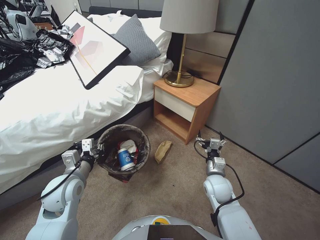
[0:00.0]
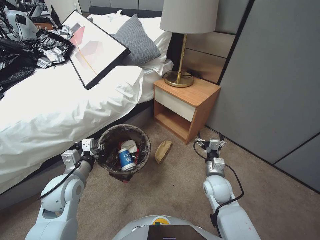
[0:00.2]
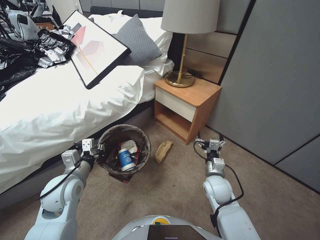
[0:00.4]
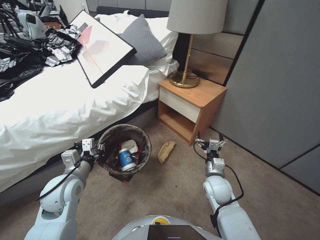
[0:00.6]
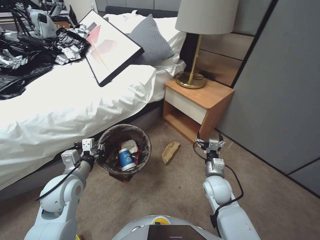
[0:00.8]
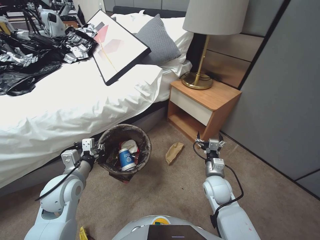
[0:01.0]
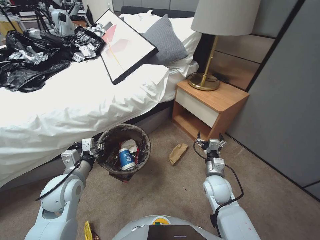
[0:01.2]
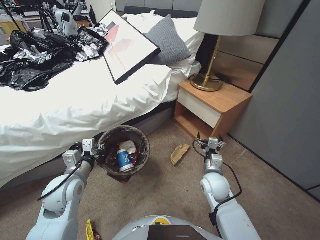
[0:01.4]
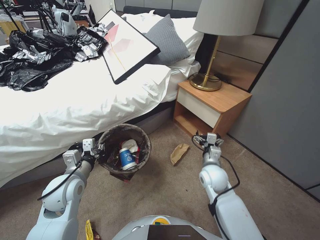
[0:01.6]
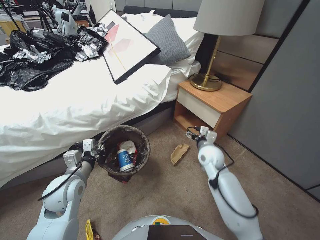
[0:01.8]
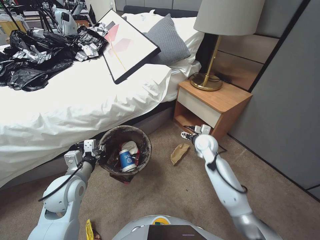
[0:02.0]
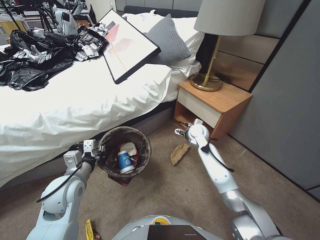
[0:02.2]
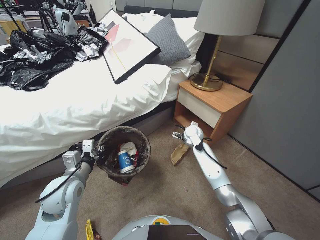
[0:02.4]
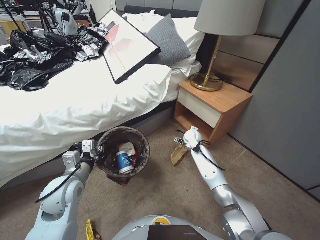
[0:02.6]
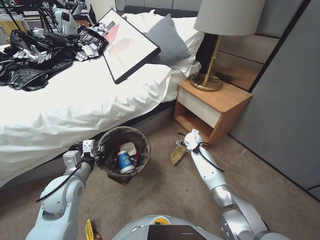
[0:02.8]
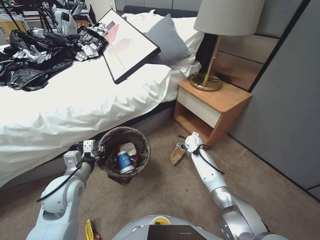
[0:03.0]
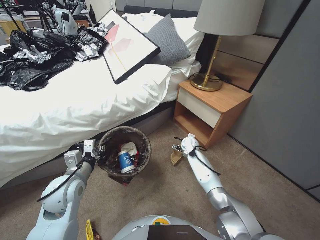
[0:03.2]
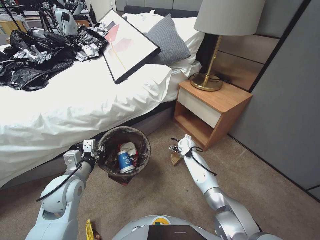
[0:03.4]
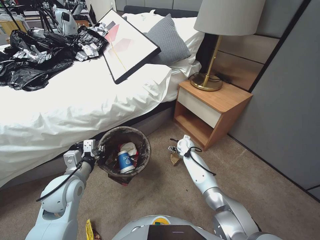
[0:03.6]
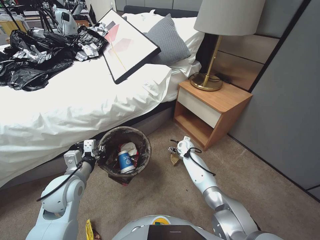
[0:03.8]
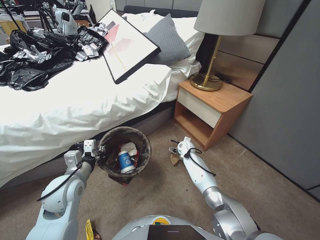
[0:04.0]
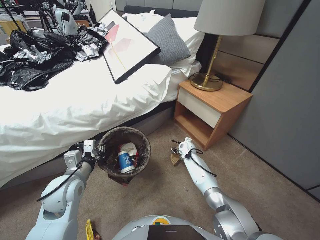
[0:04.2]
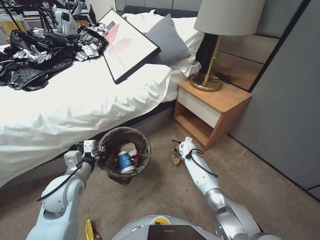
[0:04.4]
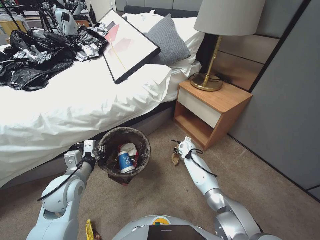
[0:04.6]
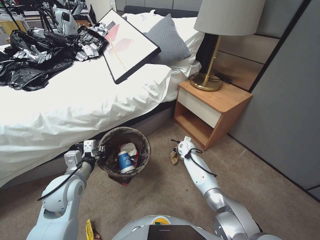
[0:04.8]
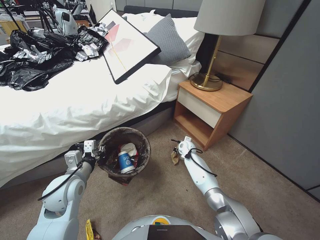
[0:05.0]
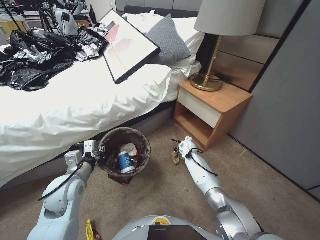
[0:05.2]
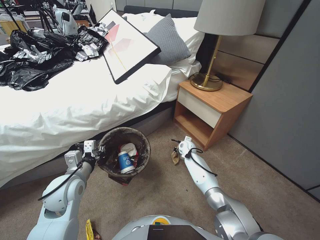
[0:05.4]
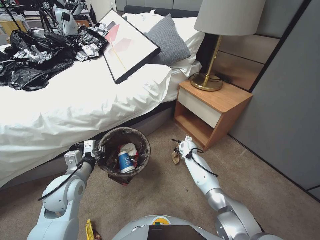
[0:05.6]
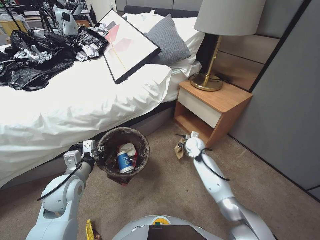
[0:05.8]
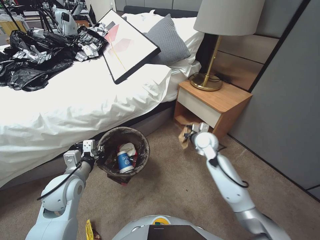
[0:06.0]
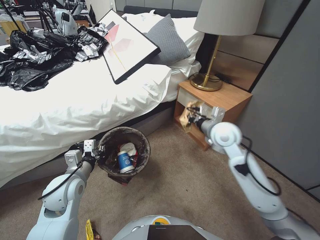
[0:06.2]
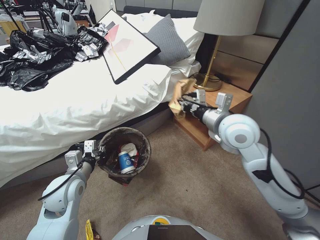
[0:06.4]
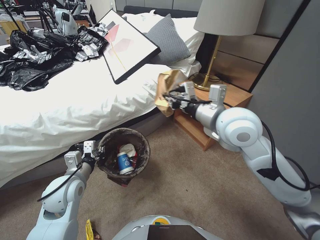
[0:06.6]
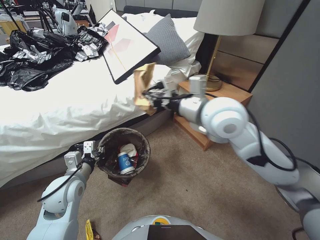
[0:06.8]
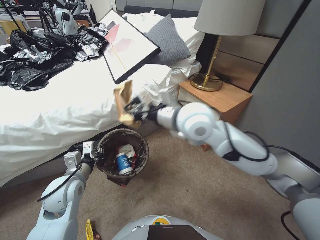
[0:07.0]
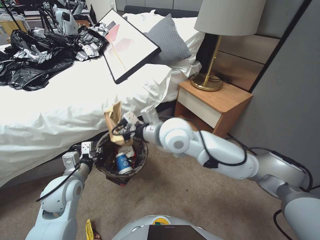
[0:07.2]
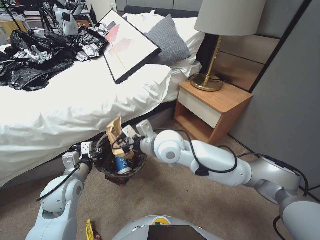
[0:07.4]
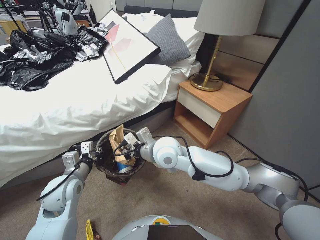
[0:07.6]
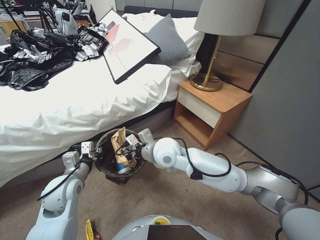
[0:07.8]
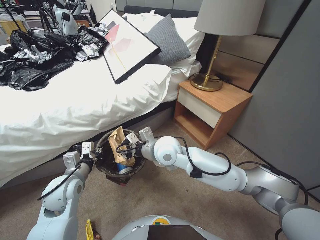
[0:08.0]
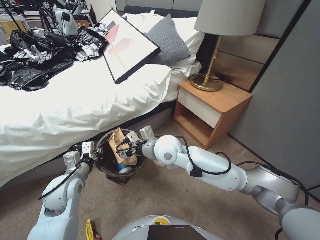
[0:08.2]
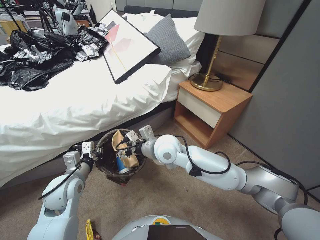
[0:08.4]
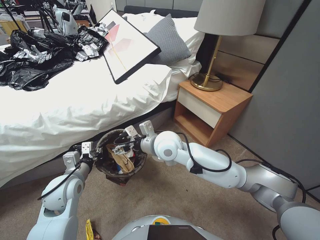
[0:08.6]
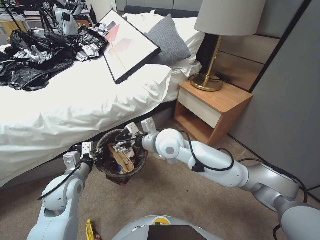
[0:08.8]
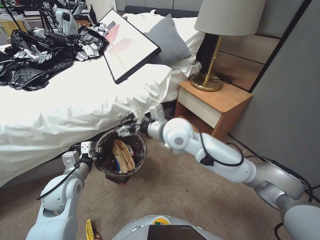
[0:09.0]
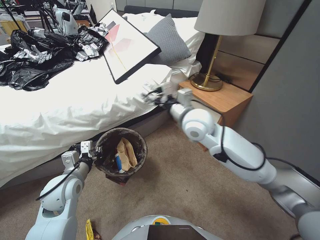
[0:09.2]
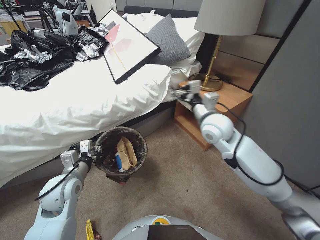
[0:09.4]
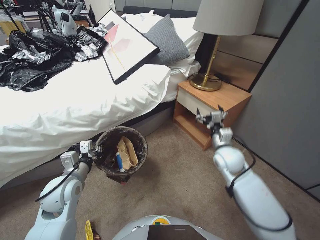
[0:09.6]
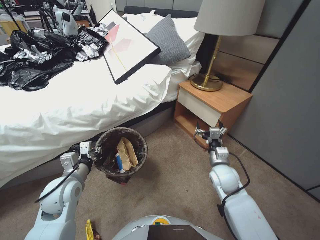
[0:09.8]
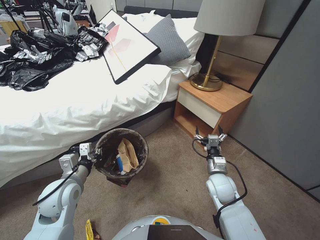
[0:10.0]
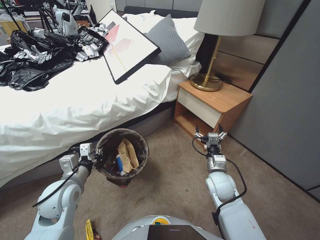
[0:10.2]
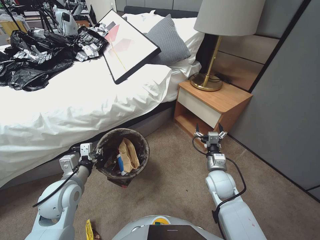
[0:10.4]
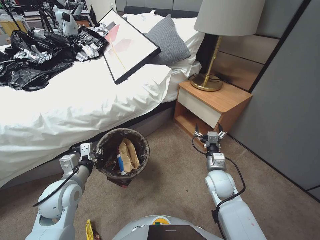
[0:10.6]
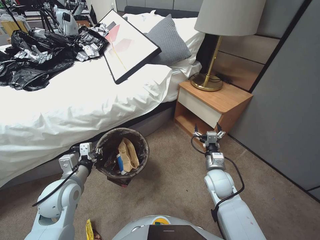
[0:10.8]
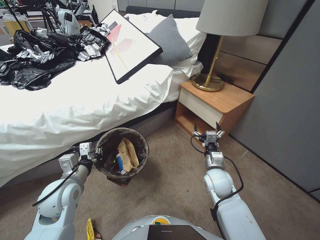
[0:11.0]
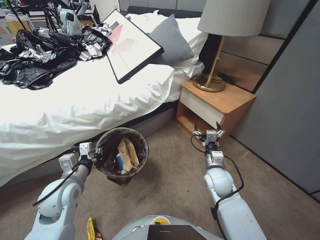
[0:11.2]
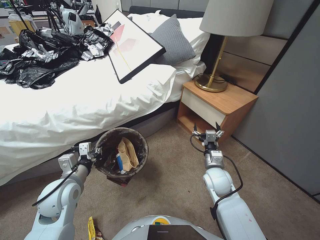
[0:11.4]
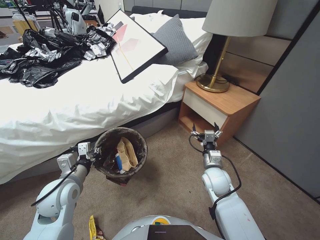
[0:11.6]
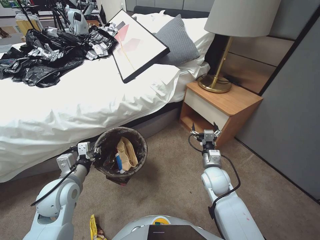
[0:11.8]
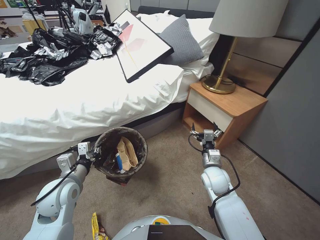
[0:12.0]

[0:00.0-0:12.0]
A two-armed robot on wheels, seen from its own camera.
Task of the whole recording: Pick up the trash bin, then pick up the garbage from the floor and place it into the trash bin.
0:01.6 to 0:03.0: The right gripper heads forward, covering roughly 20 cm.
0:03.0 to 0:04.4: The right gripper moves some 5 cm.
0:04.4 to 0:06.0: The right gripper is displaced upward by approximately 10 cm, and closes its fingers.
0:06.0 to 0:07.6: The right gripper is displaced to the left, upward and backward by roughly 30 cm.
0:07.6 to 0:09.0: The right gripper ends up about 5 cm from where it was, and opens its fingers.
0:09.0 to 0:10.4: The right gripper shifts roughly 30 cm downward and to the right.

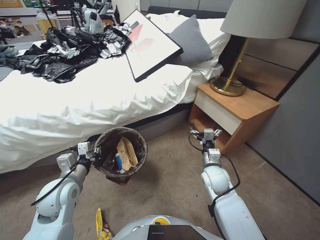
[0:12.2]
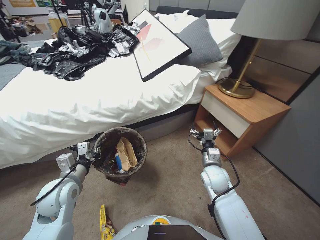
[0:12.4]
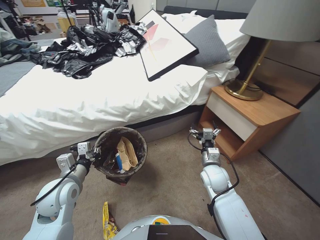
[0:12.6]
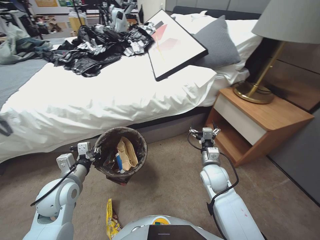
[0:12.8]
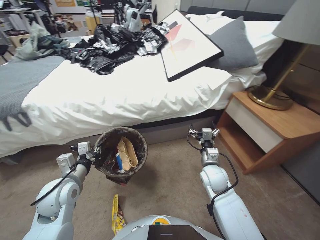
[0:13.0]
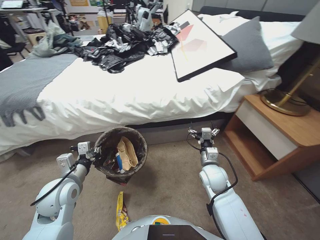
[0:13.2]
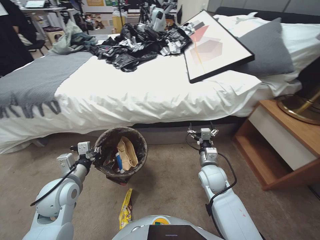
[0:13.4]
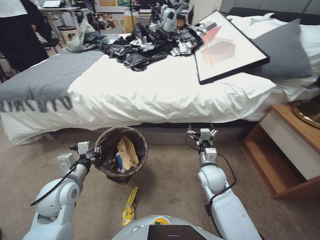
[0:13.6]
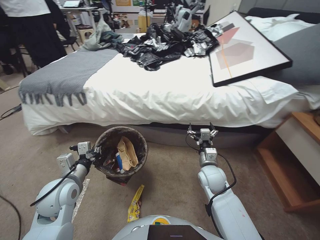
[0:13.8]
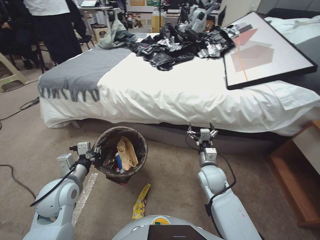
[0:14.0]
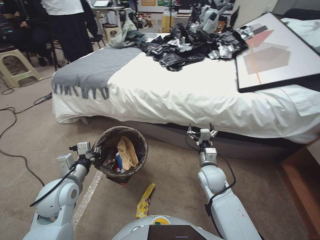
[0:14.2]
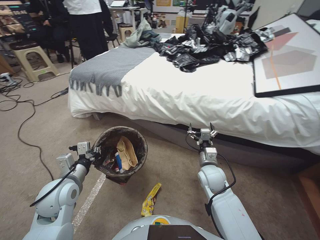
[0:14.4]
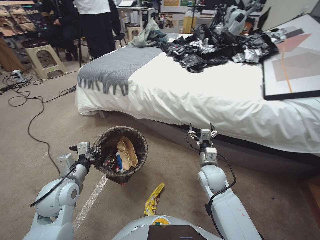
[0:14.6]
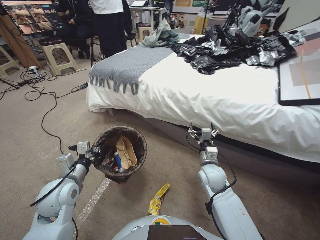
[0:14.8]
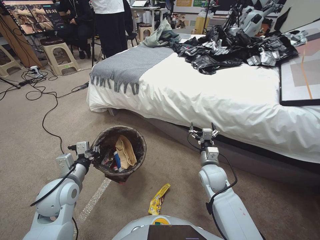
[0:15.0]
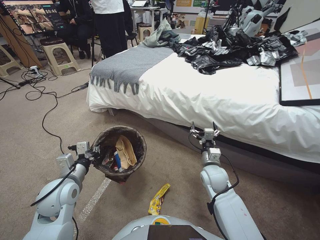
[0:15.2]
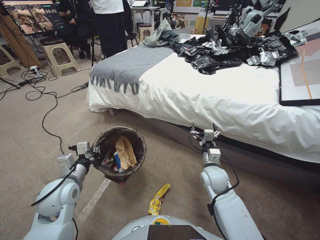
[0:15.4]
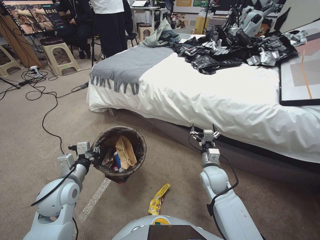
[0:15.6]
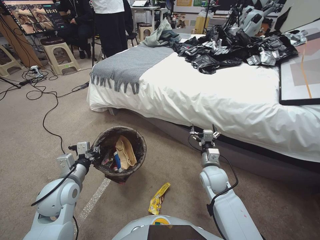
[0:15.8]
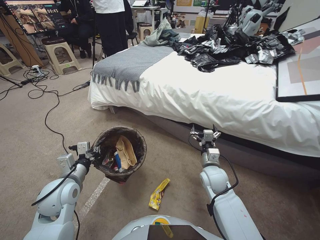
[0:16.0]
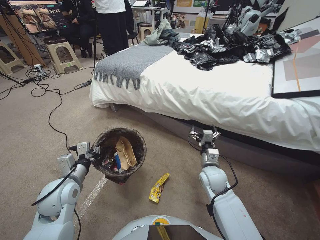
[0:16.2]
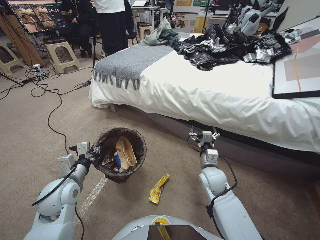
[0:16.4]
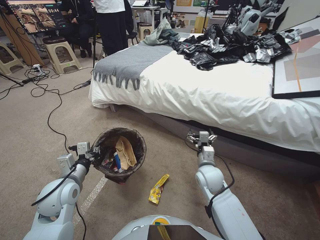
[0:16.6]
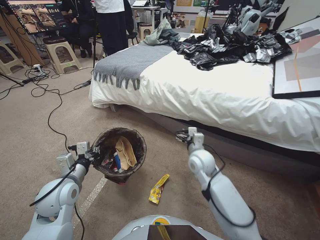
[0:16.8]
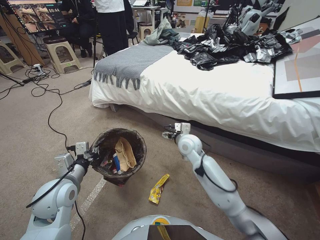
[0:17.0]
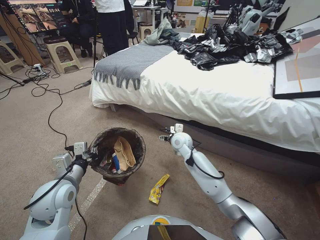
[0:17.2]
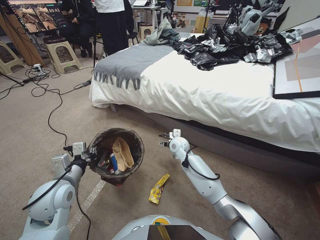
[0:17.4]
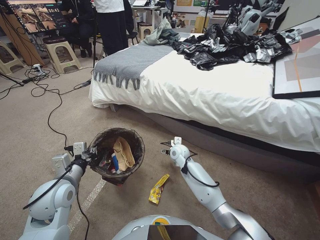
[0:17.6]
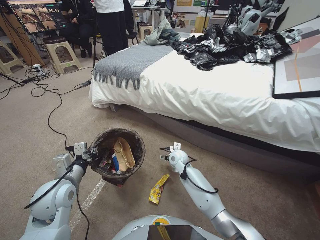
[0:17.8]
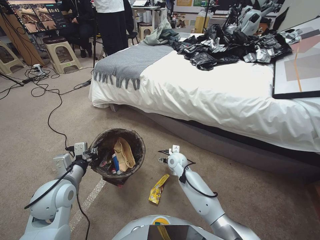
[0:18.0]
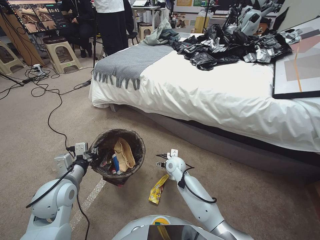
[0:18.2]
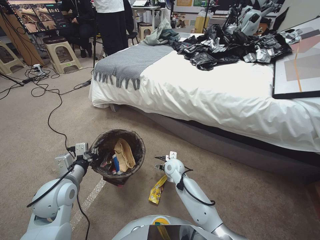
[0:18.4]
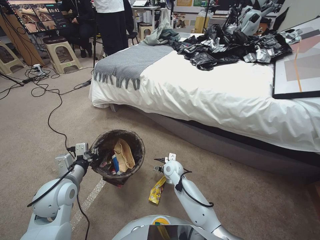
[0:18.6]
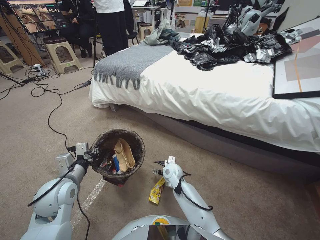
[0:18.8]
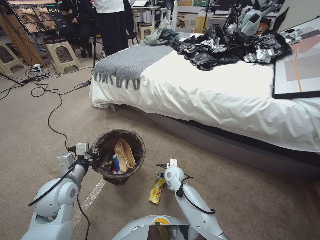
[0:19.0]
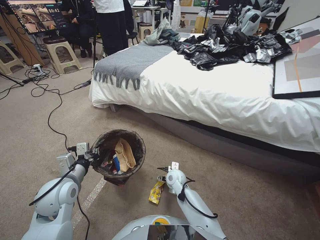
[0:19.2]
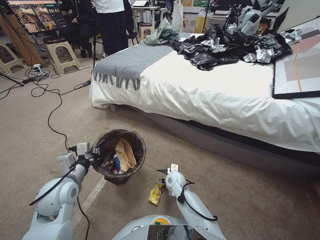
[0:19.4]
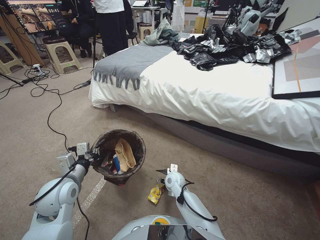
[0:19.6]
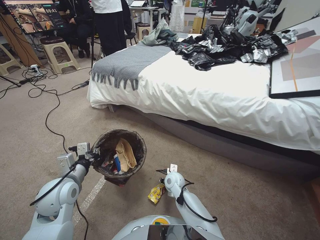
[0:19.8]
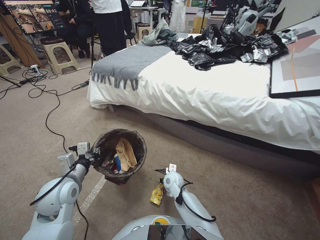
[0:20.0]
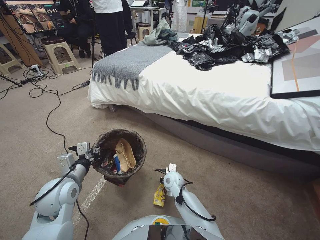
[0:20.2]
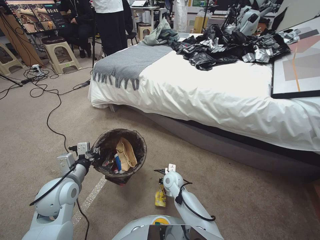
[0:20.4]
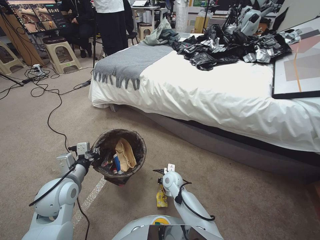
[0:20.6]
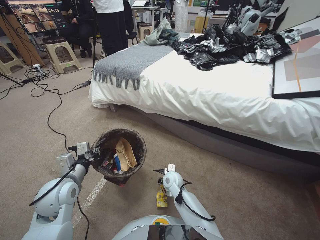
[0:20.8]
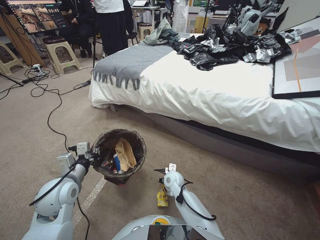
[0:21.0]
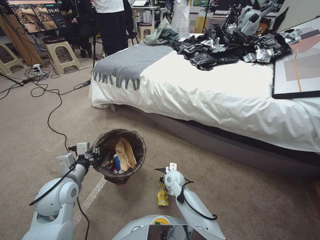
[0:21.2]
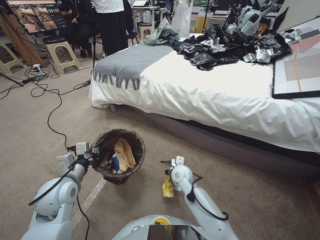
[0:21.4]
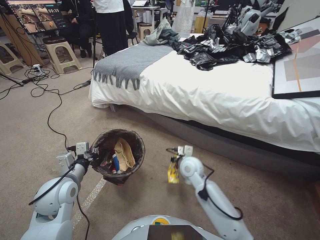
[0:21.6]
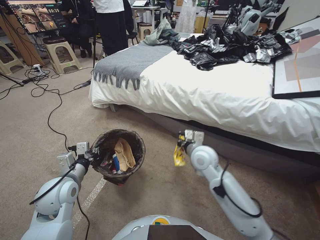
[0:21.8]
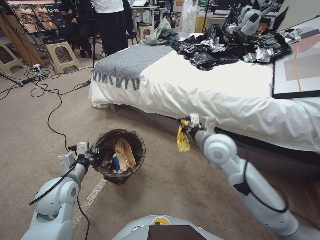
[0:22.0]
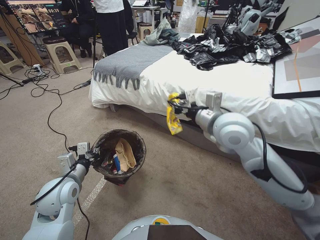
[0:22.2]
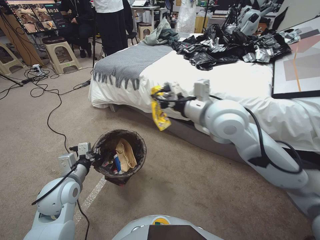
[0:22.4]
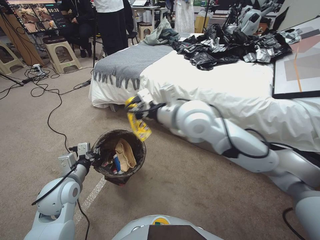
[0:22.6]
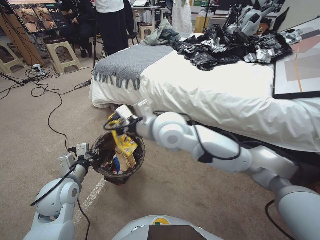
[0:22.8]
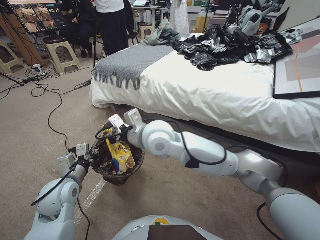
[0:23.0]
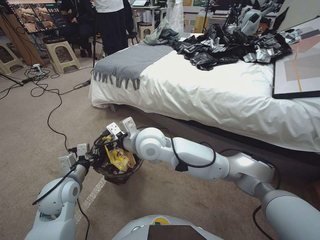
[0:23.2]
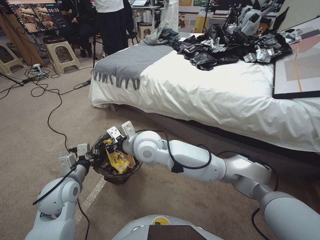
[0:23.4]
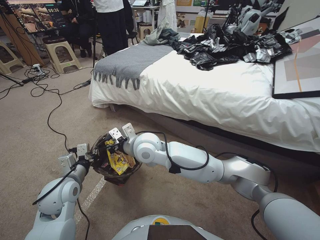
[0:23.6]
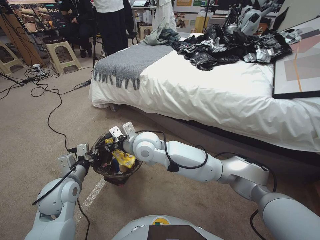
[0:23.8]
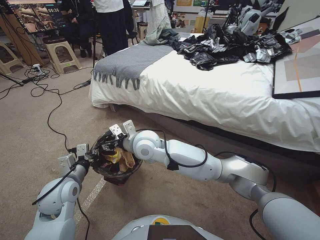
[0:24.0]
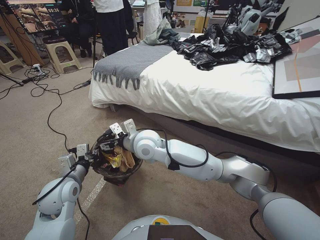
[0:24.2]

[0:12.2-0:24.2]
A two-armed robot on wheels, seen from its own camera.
Task of the whole recording: Pick up the trash bin, then pick up the garbage from the floor and place it into the trash bin.
0:16.6 to 0:18.2: The right gripper heads to the left, forward and downward, covering approximately 15 cm.
0:18.2 to 0:19.8: The right gripper shifts about 5 cm backward.
0:19.8 to 0:21.2: The right gripper closes up.
0:21.2 to 0:22.6: The right gripper goes about 40 cm upward.
0:22.6 to 0:24.2: The right gripper moves to the left and downward, approximately 20 cm, and opens.
